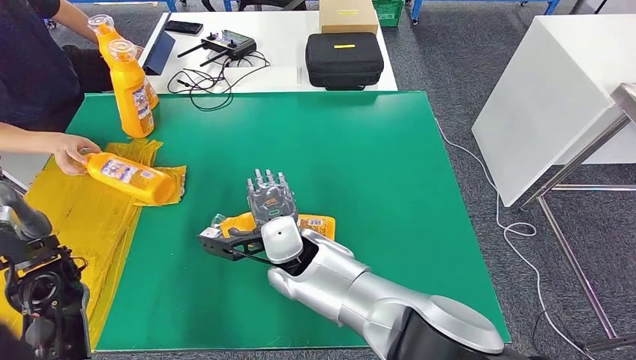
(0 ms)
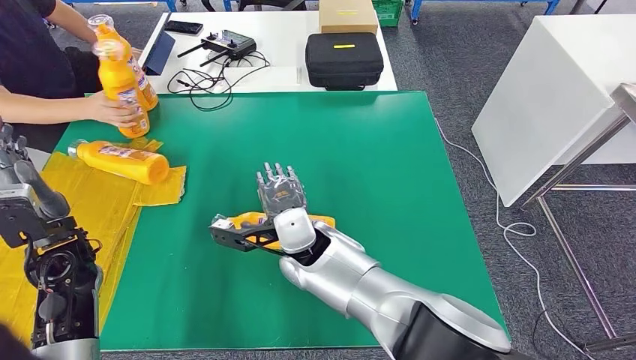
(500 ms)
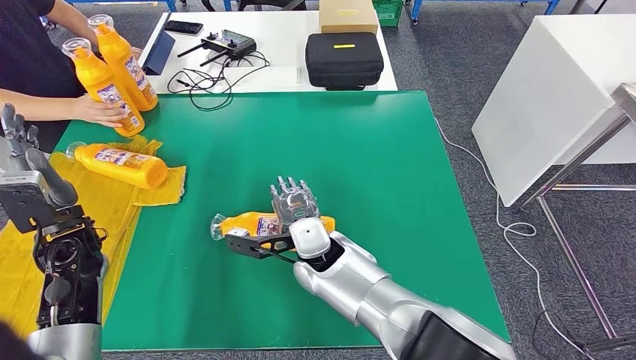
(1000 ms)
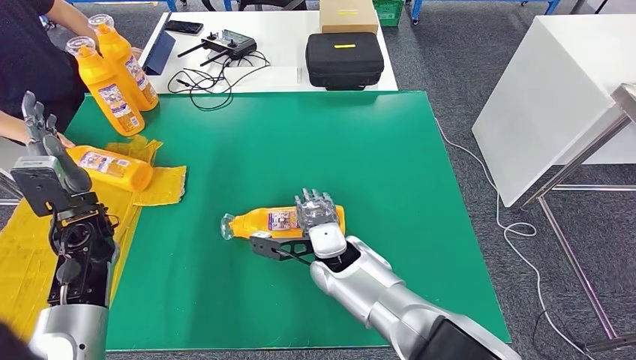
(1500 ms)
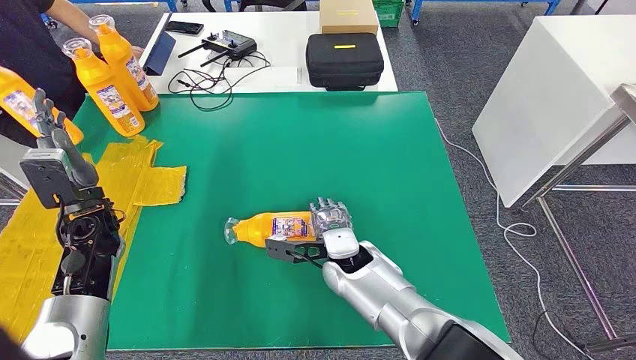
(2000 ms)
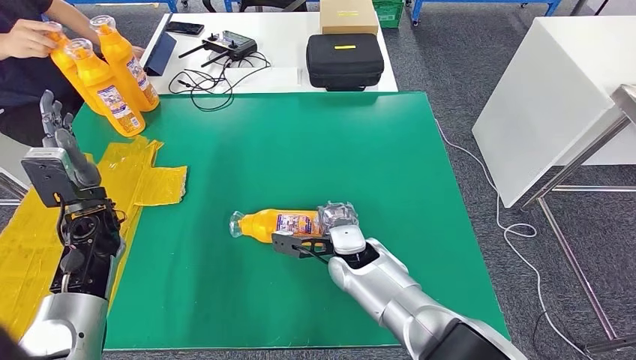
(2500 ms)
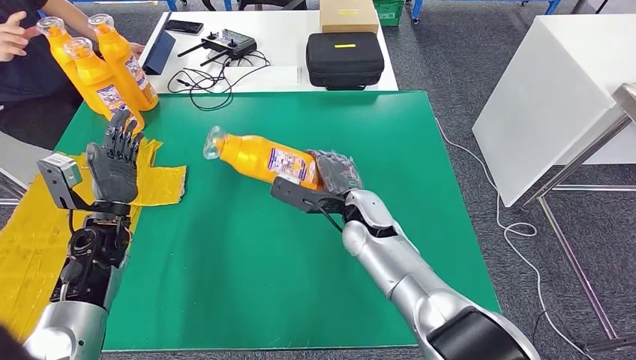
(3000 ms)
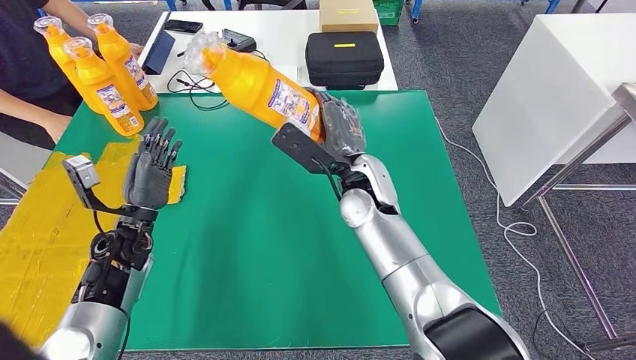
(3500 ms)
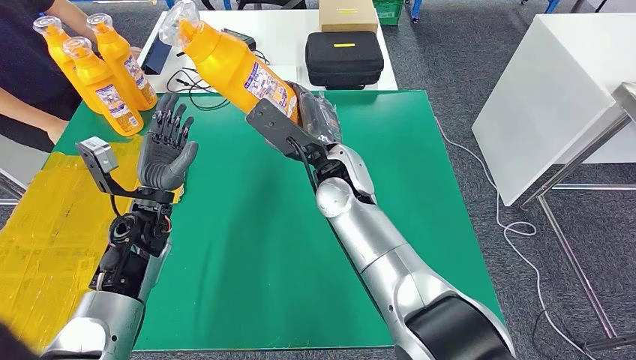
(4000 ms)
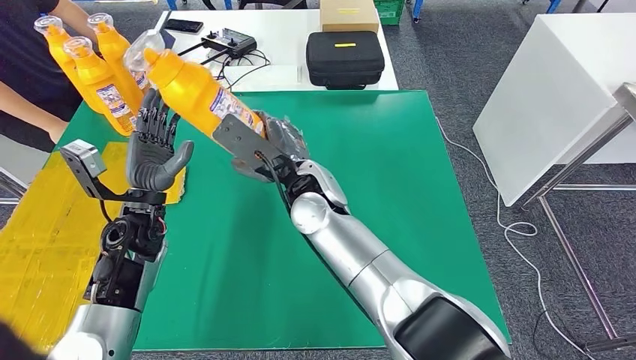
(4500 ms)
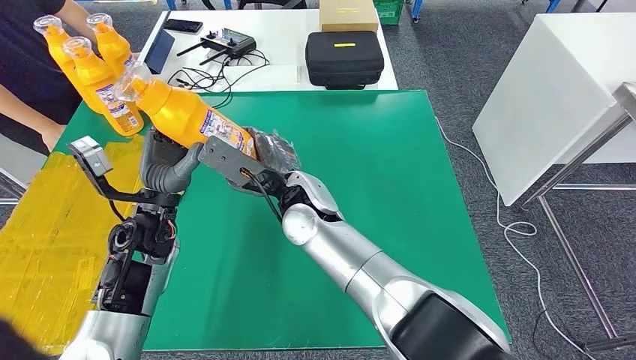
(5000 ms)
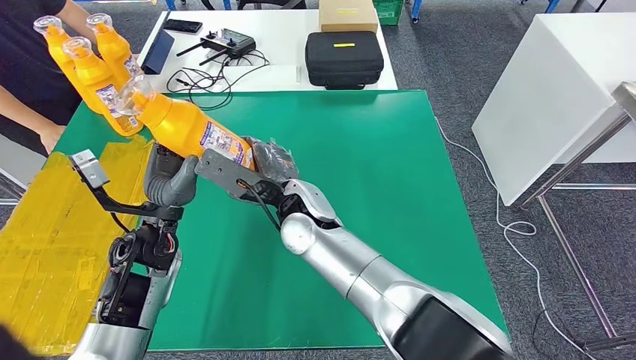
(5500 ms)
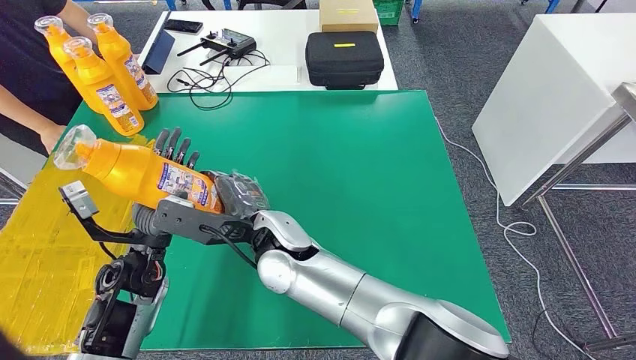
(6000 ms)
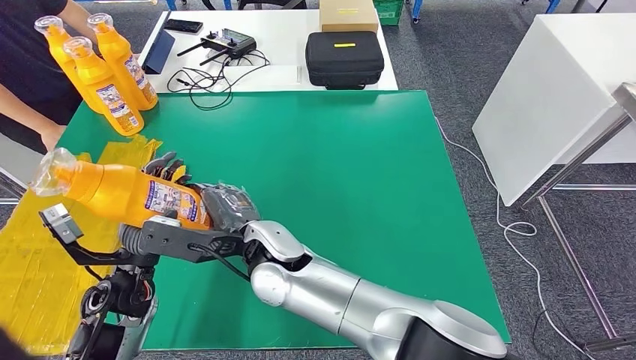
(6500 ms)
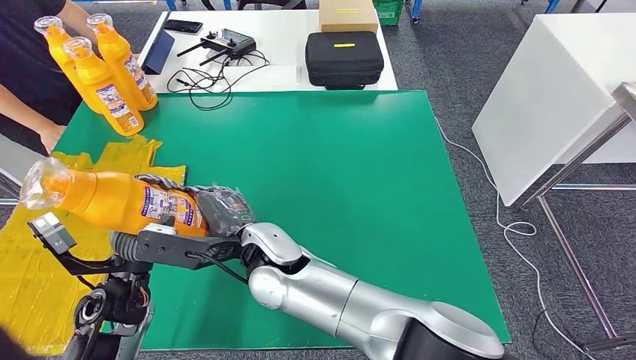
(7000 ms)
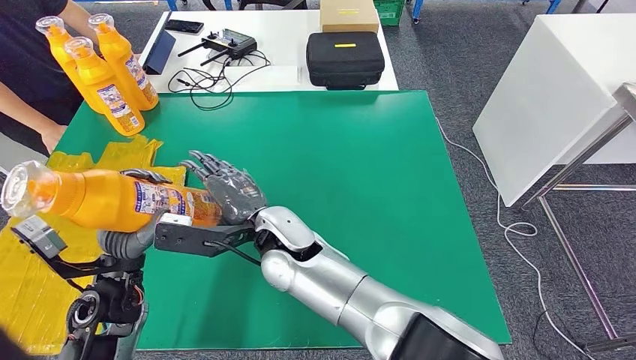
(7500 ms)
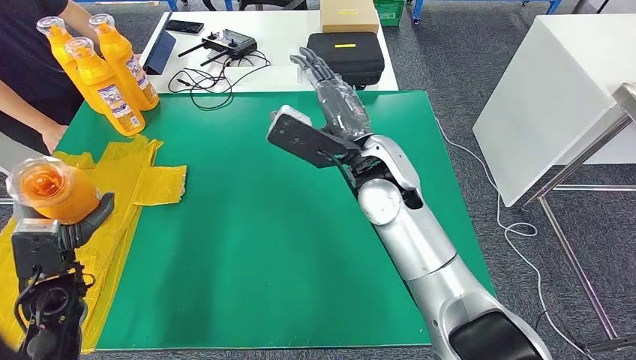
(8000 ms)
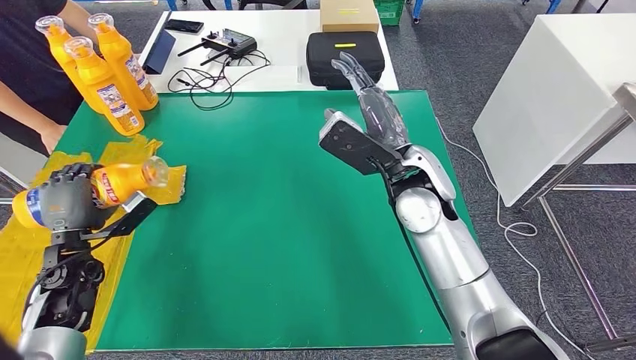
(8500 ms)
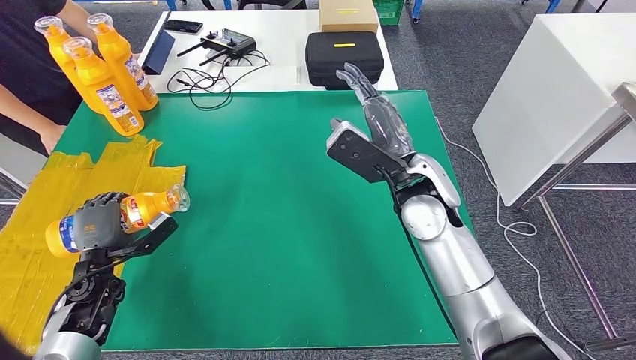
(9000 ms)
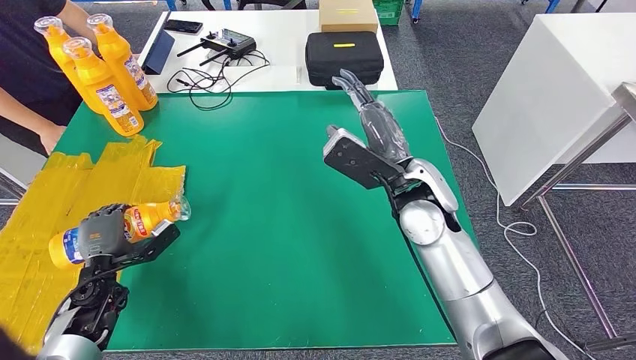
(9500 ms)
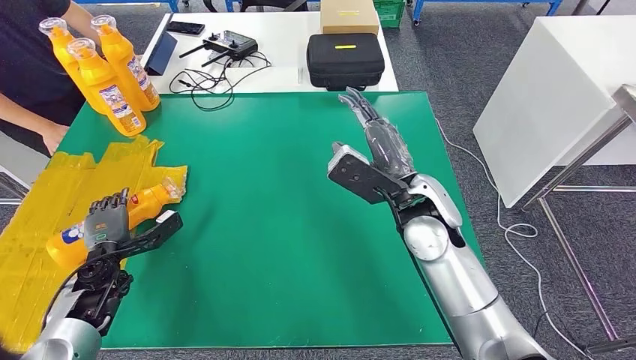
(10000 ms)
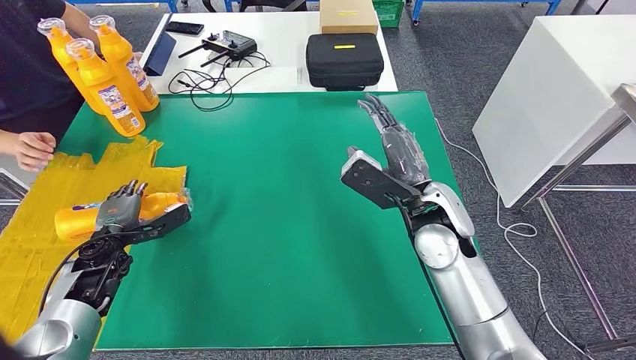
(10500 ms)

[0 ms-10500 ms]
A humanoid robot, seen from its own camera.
Step, 2500 ms to 3500 ms: Pick up the bottle from the table.
Step, 4500 ms to 10500 ms: Flip the bottle to face forward.

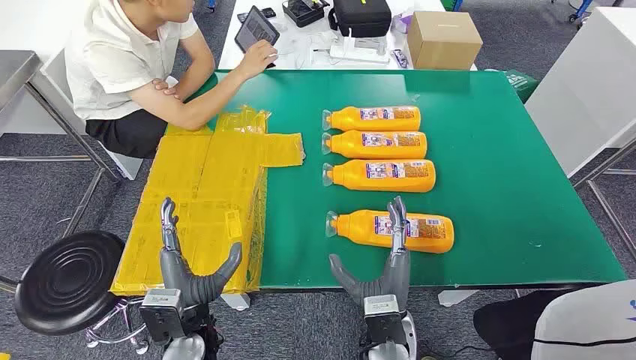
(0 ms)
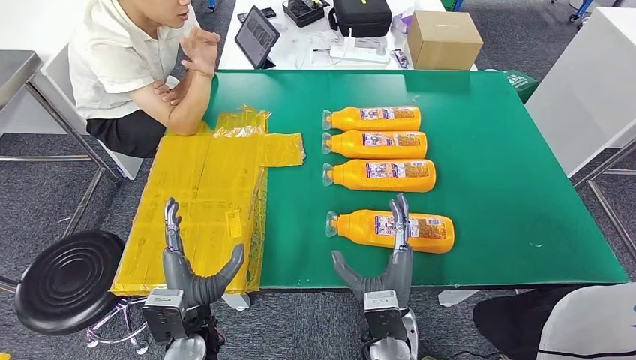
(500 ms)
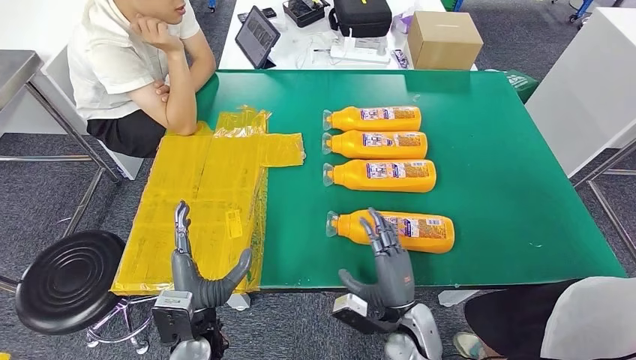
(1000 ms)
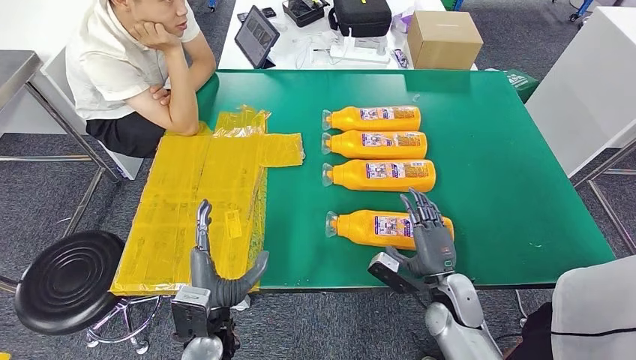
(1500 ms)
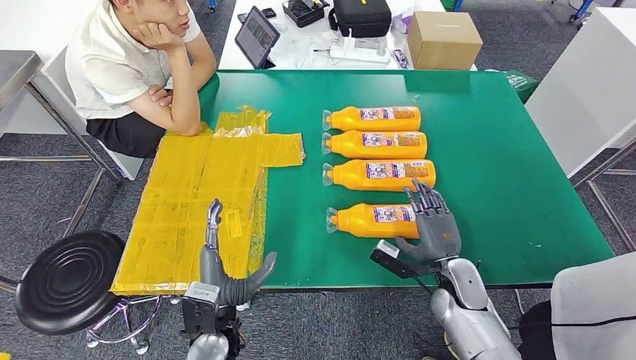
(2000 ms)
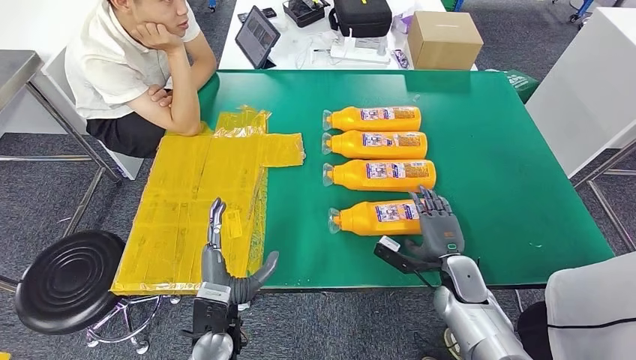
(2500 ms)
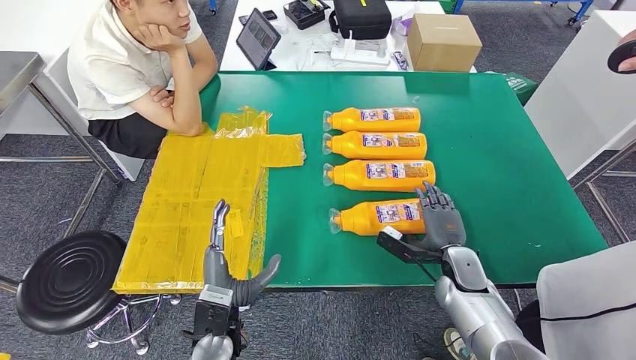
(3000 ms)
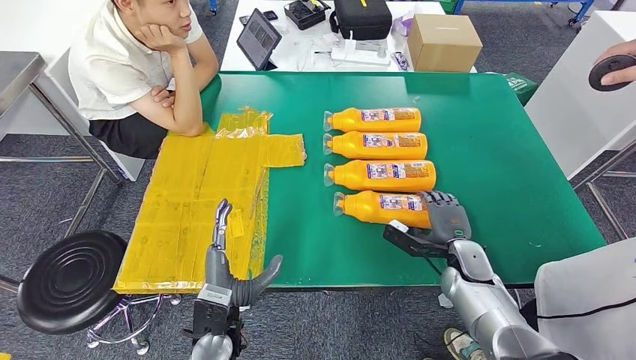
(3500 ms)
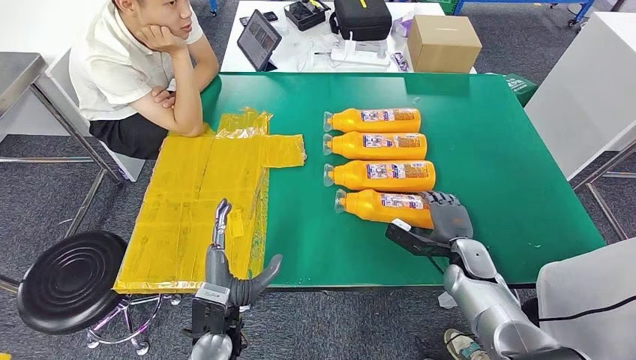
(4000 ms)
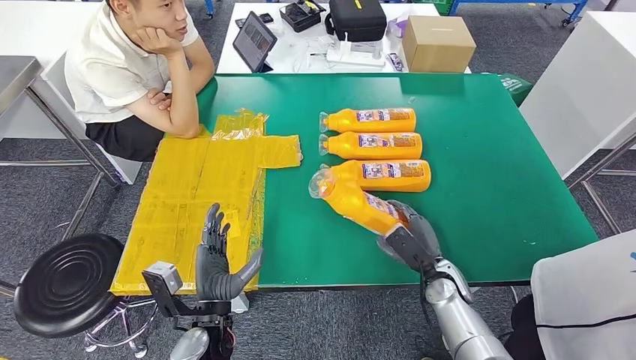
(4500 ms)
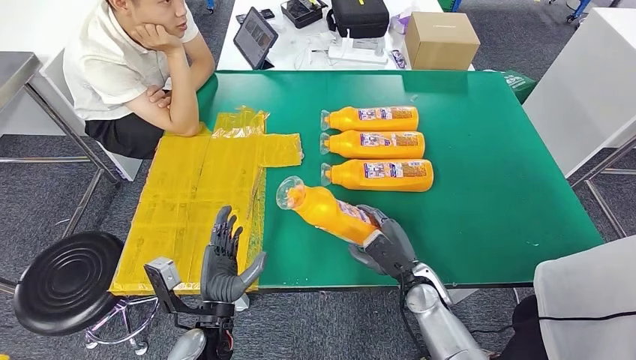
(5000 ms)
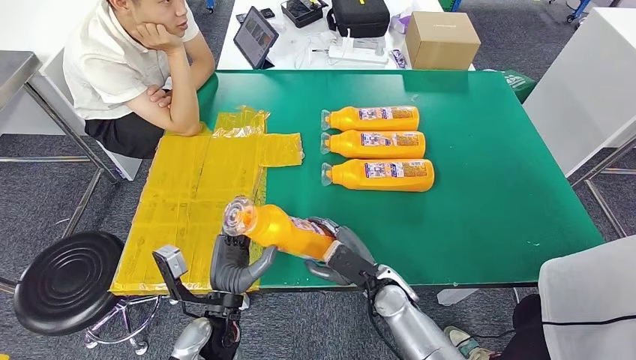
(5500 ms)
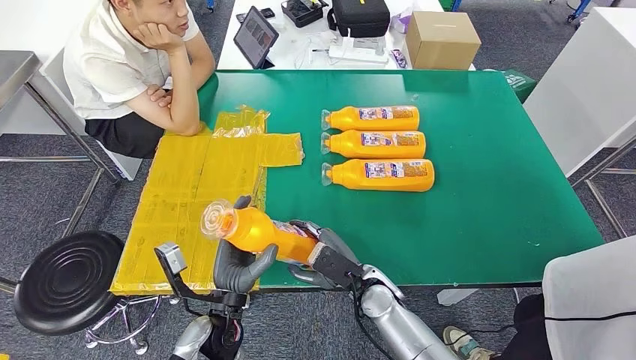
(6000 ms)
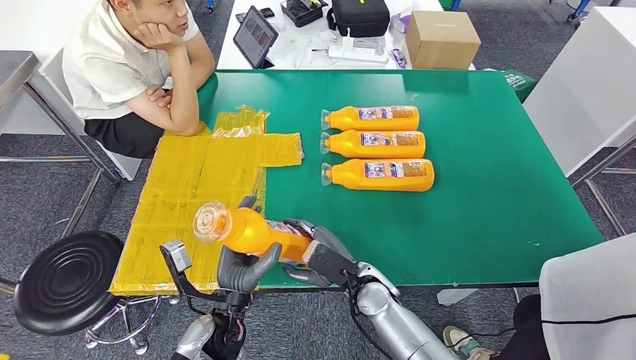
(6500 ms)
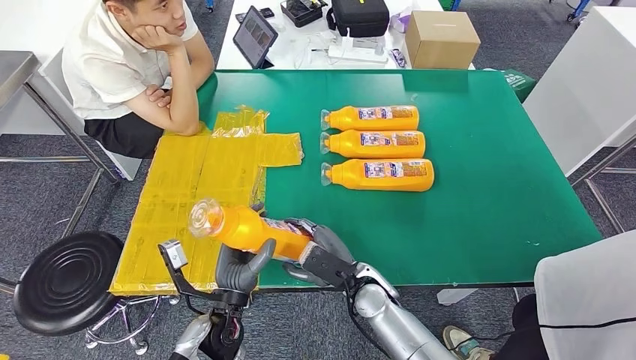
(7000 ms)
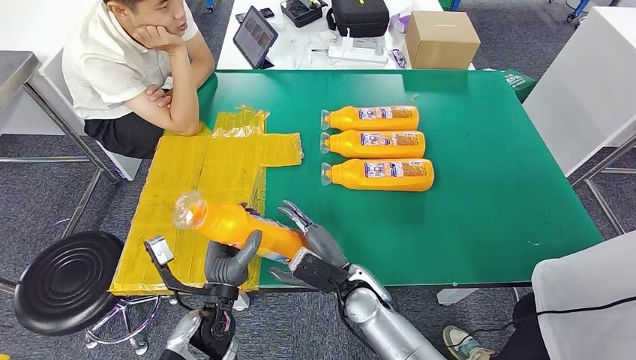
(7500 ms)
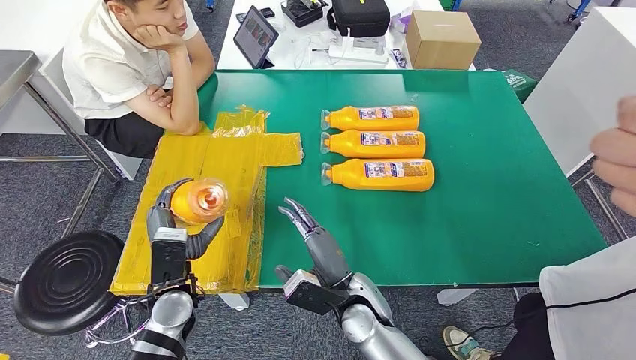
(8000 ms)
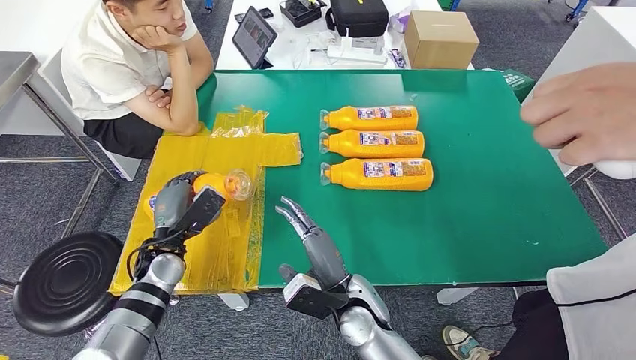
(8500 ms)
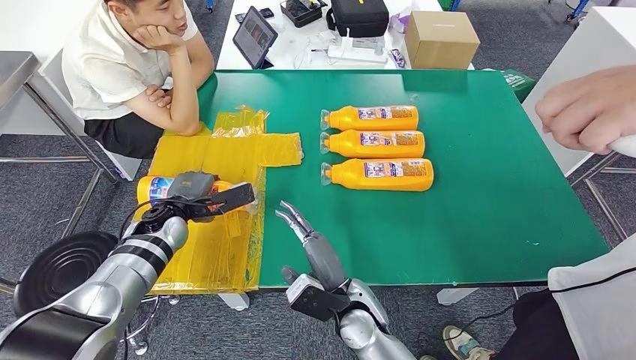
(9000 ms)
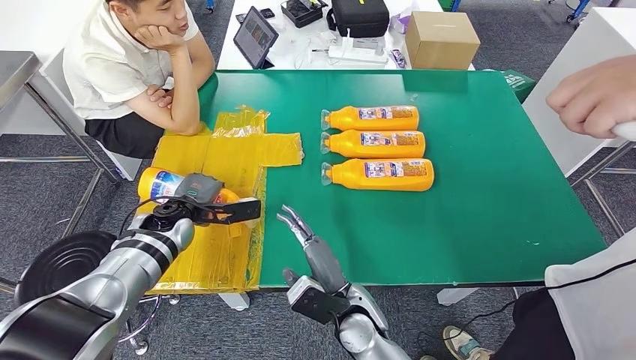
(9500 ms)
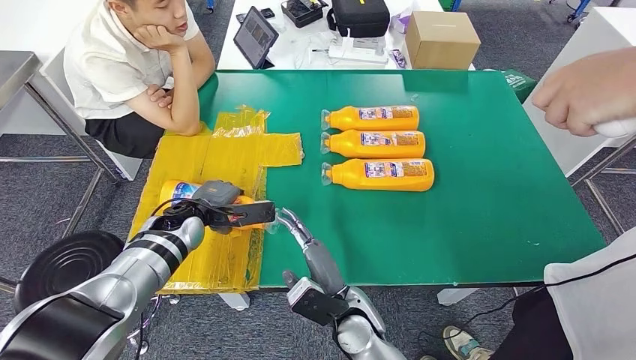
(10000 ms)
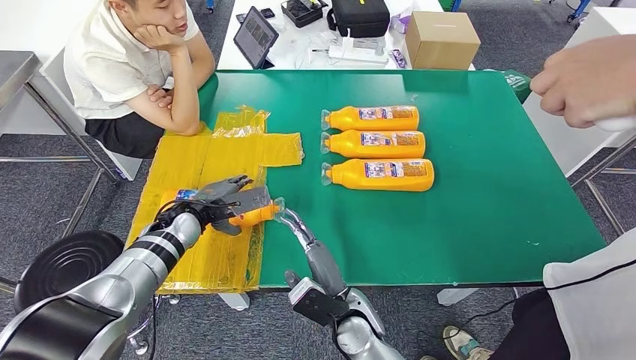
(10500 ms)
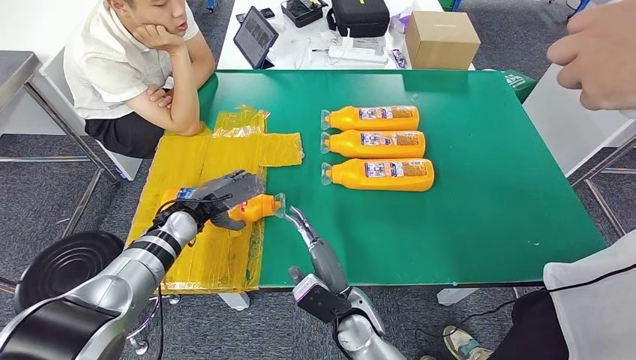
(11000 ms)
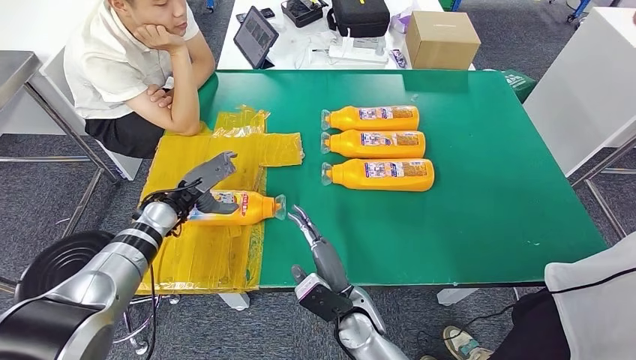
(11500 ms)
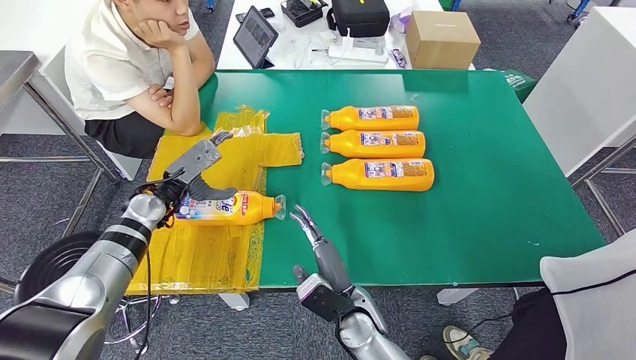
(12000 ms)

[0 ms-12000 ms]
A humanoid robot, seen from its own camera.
Step, 0 ms to 4500 ms: Take the bottle from the table.
Step, 5500 ms to 12000 ms: Flip the bottle to face forward.
2000 ms to 4000 ms: The right hand changes place by some 5 cm.
6000 ms to 8000 ms: The left hand moves to the left and forward, roughly 10 cm; the right hand ends up some 5 cm from where it was.
8000 ms to 10000 ms: The left hand travels forward by about 15 cm.
10000 ms to 12000 ms: The left hand goes roughly 5 cm to the left.
